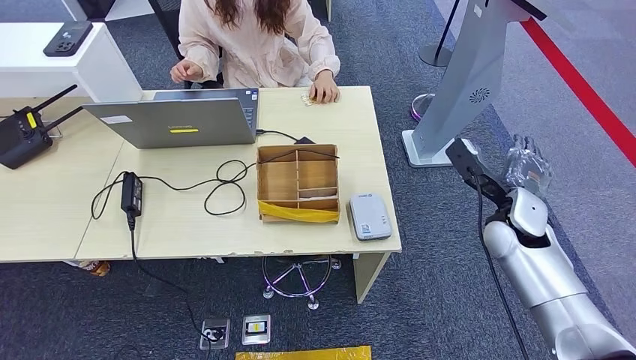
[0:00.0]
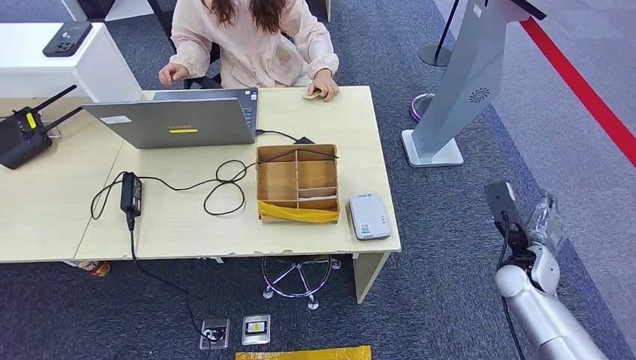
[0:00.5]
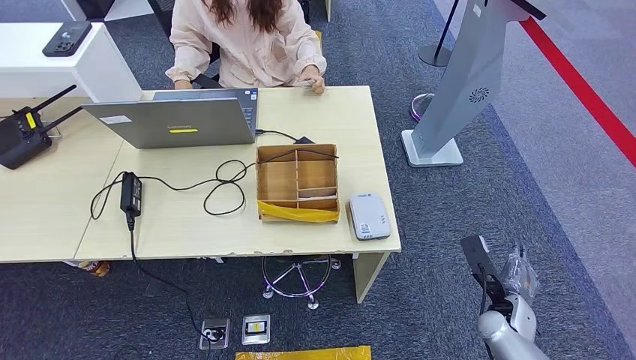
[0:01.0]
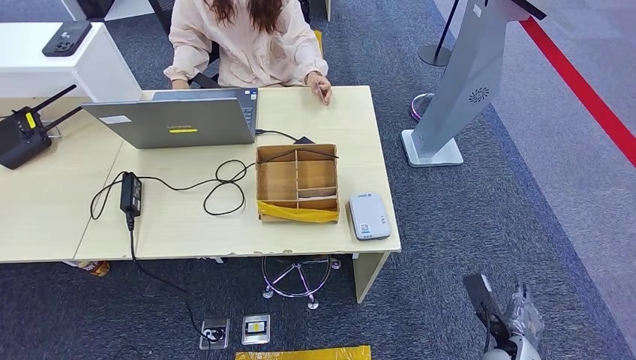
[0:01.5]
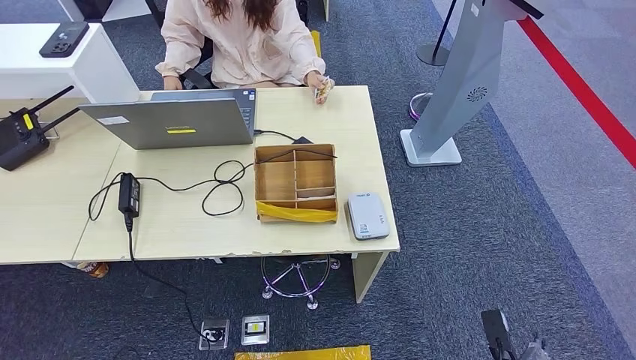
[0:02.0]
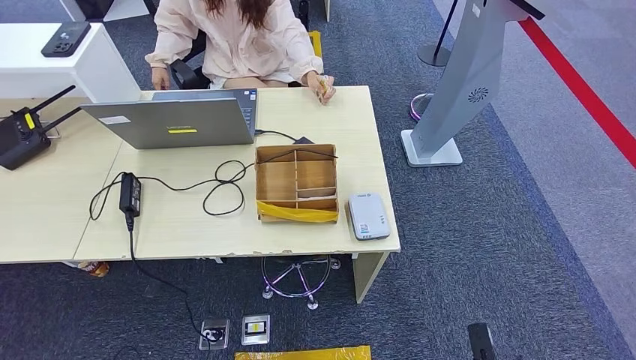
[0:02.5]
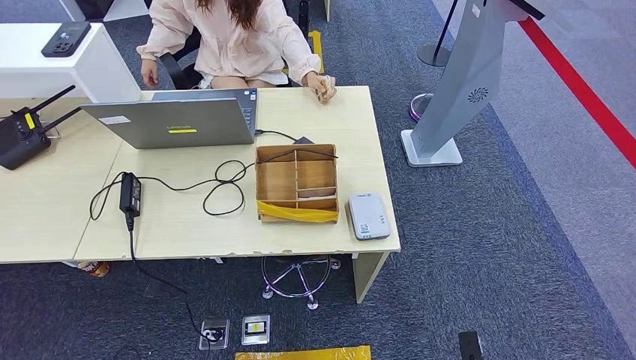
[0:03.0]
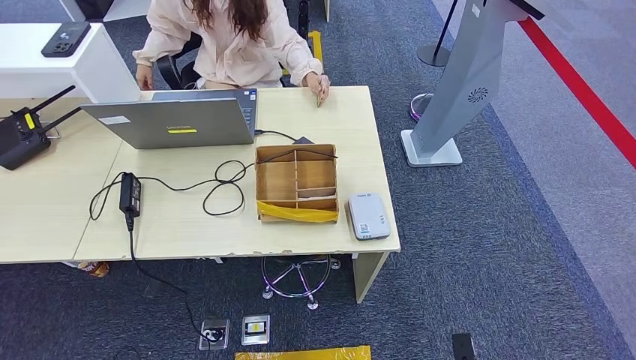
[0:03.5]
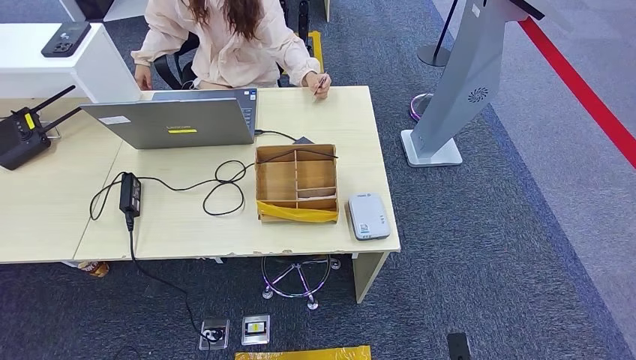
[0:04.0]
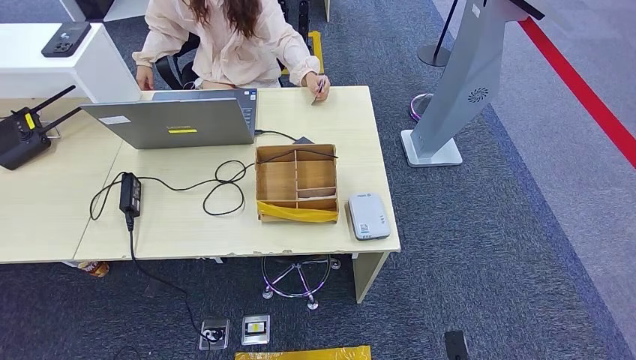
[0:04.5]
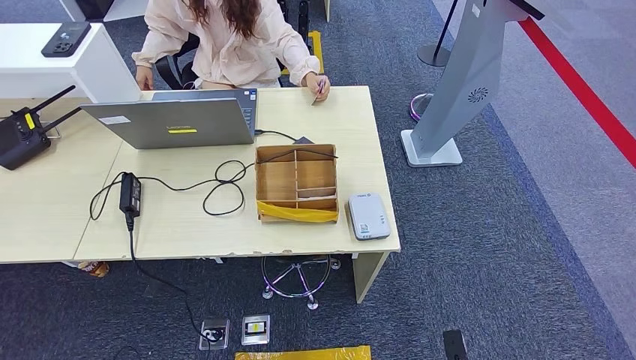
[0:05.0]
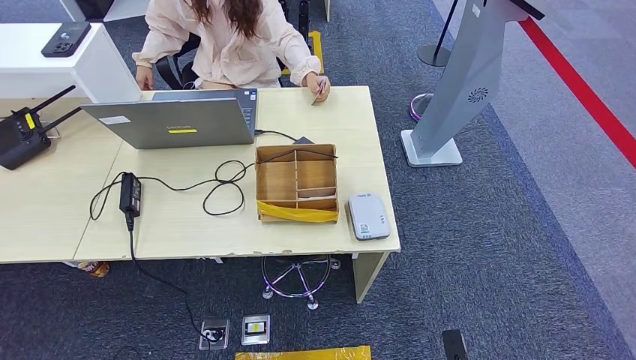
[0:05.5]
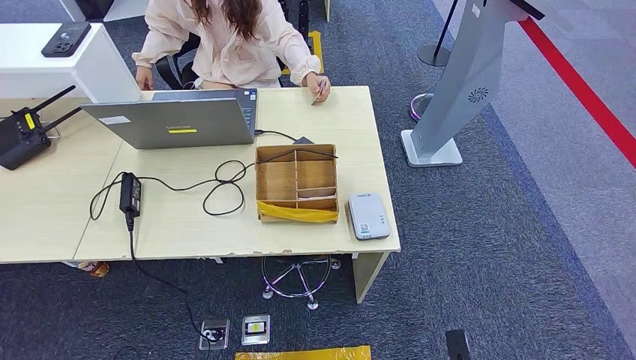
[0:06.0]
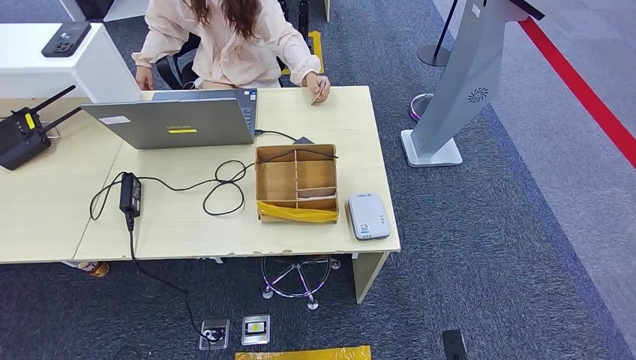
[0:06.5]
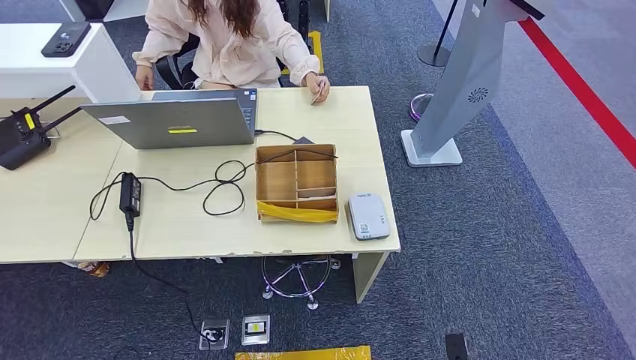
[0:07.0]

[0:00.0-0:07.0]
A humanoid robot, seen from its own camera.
Step, 0:00.0 to 0:03.5: Pick up the room key from the key card box.
0:00.0 to 0:02.0: The right hand moves backward and downward, roughly 40 cm.
0:02.0 to 0:03.5: The right hand moves to the left, roughly 10 cm.
0:03.5 to 0:05.0: The hands move only a little.
